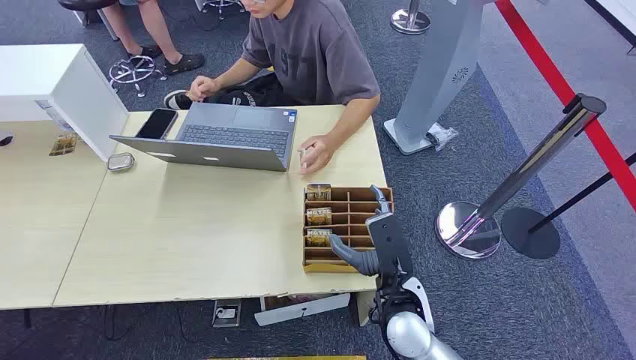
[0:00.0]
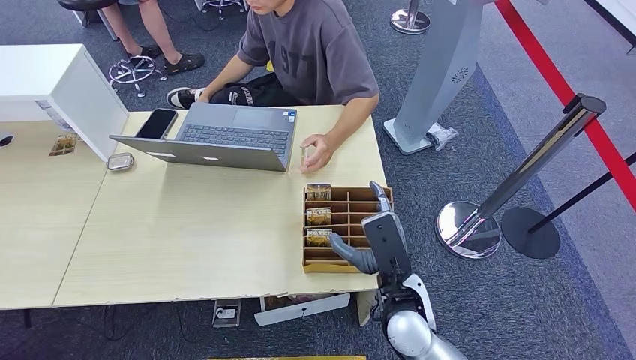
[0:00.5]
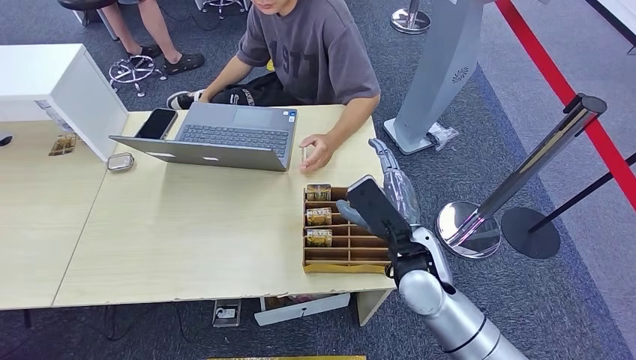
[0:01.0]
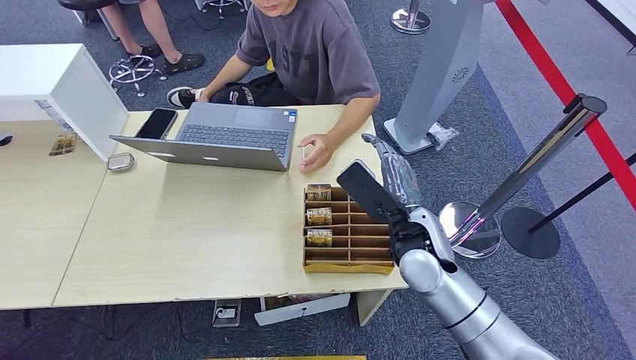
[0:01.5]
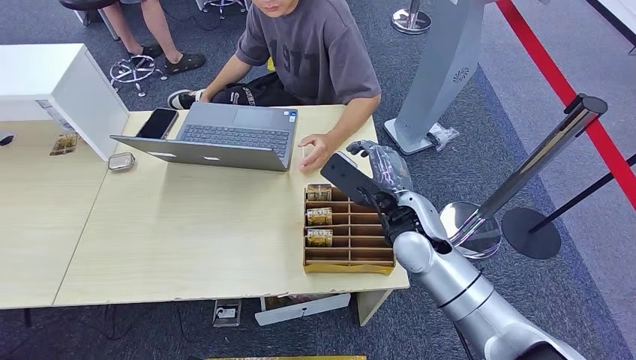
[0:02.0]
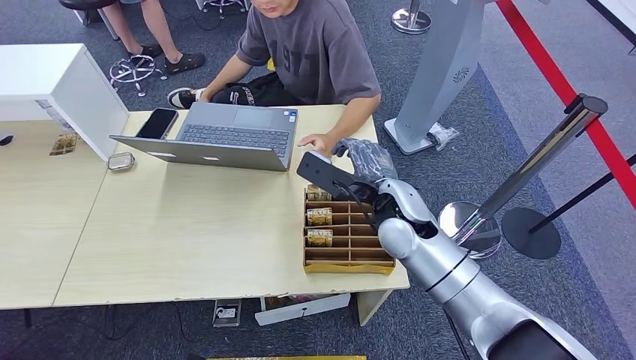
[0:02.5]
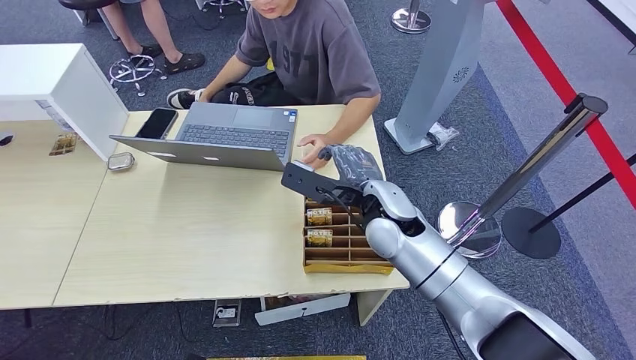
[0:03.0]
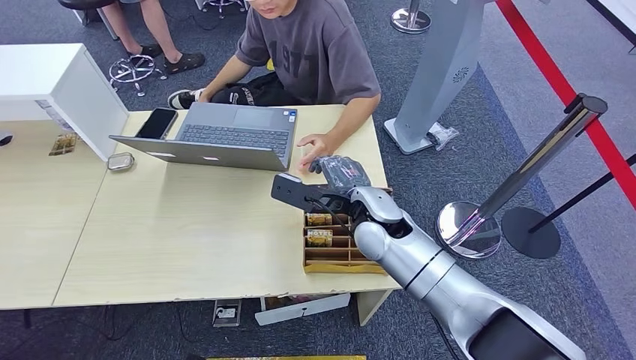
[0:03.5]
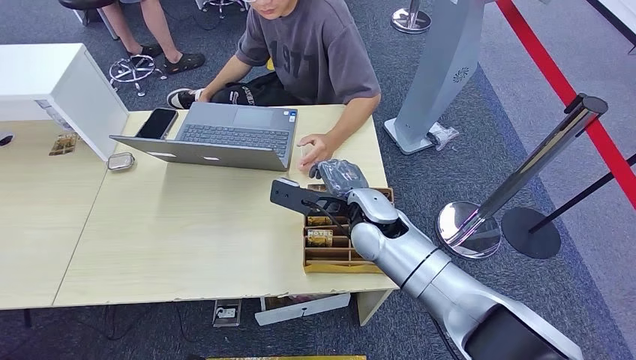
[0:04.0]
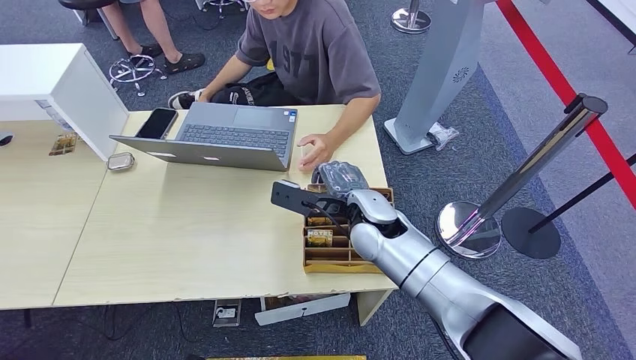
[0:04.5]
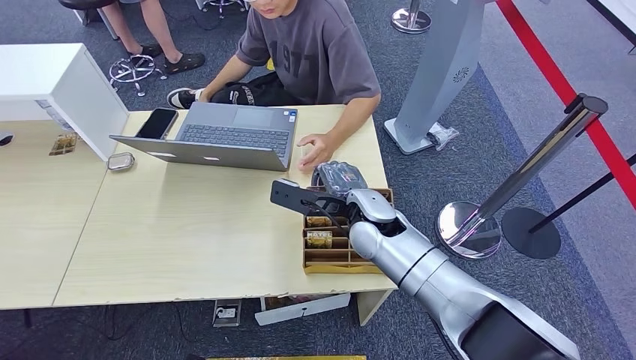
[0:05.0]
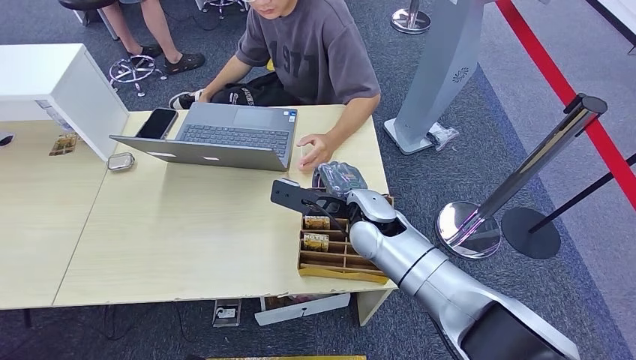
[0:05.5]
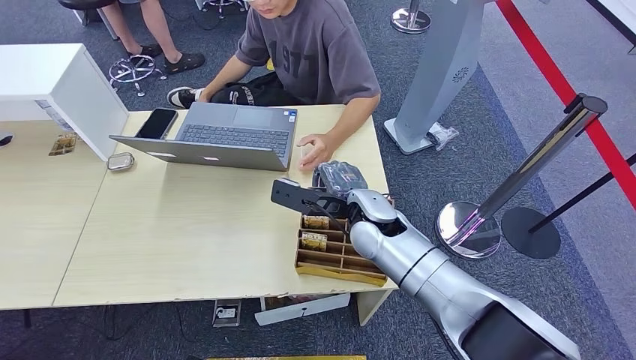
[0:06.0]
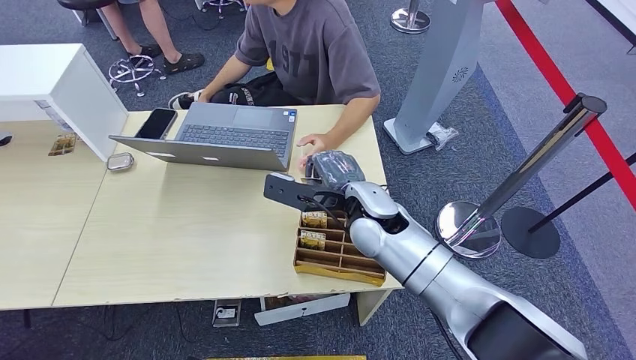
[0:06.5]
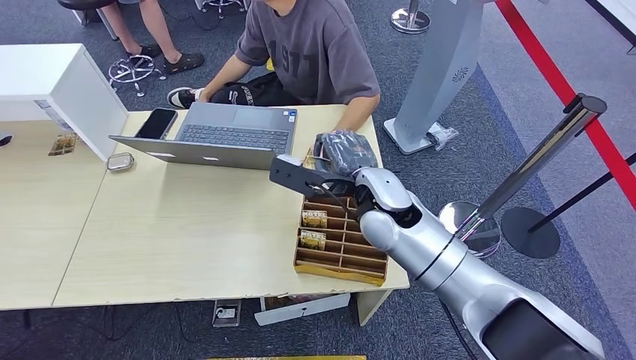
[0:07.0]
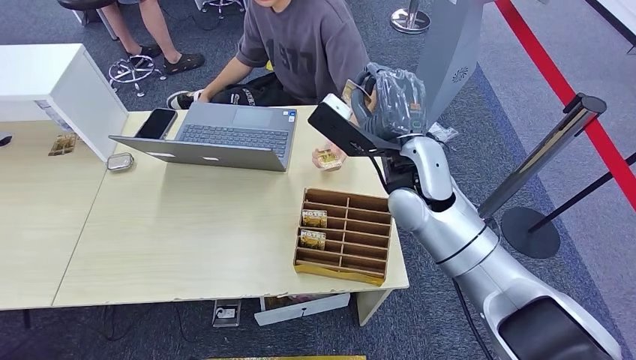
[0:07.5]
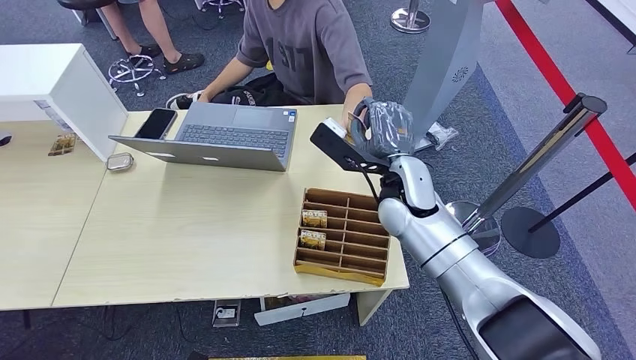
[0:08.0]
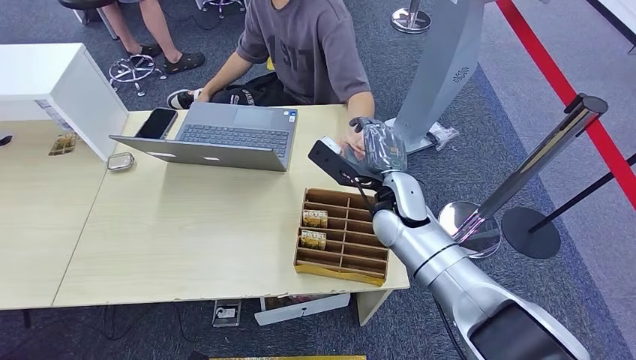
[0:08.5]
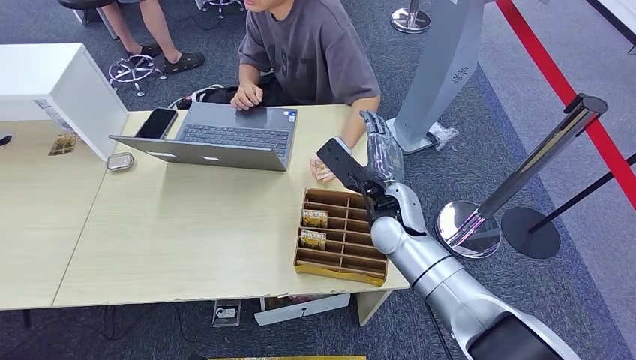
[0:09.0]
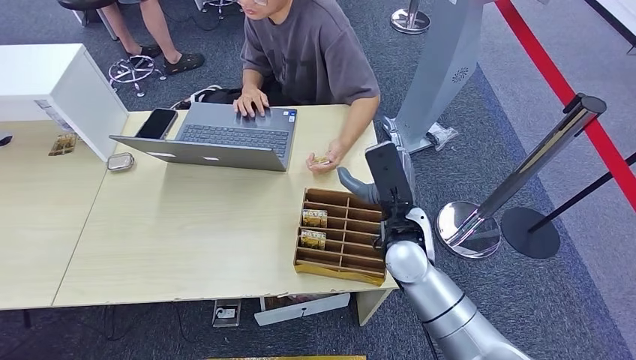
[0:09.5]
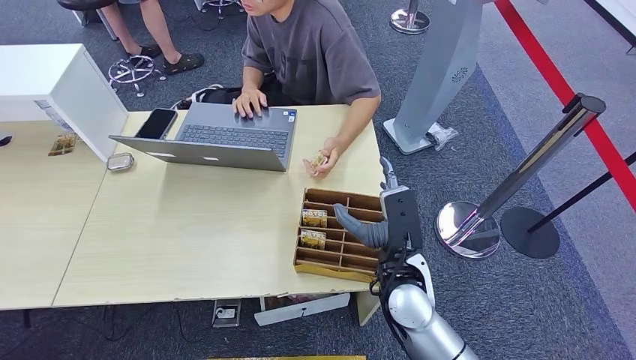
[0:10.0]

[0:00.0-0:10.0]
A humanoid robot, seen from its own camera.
Step, 0:00.0 to 0:08.0: Pick up the key card from the card box.
Step, 0:08.5 to 0:10.0: Hand the key card to the target.
0:02.0 to 0:04.0: The right hand is displaced to the left by approximately 5 cm.
0:04.0 to 0:06.0: Both hands stay about where they are.
0:06.0 to 0:08.0: The right hand travels to the right by approximately 5 cm.
0:08.0 to 0:10.0: The right hand heads backward and downward, covering about 15 cm.
